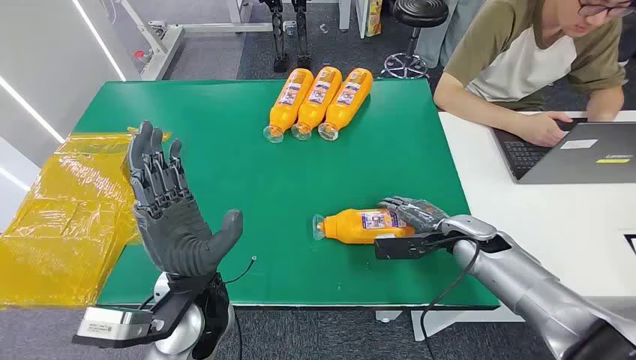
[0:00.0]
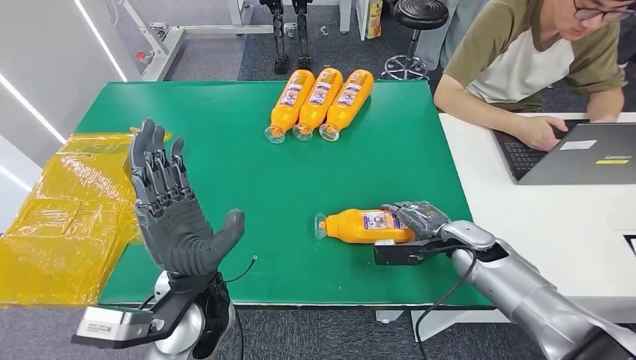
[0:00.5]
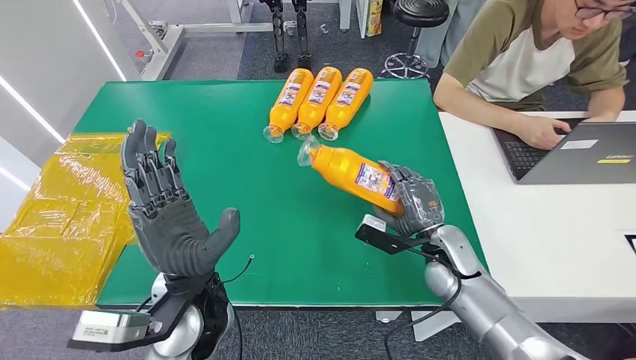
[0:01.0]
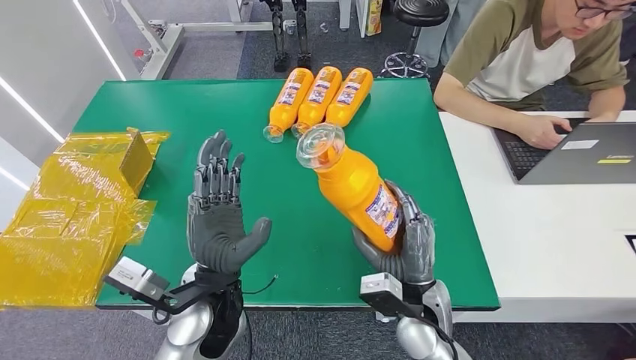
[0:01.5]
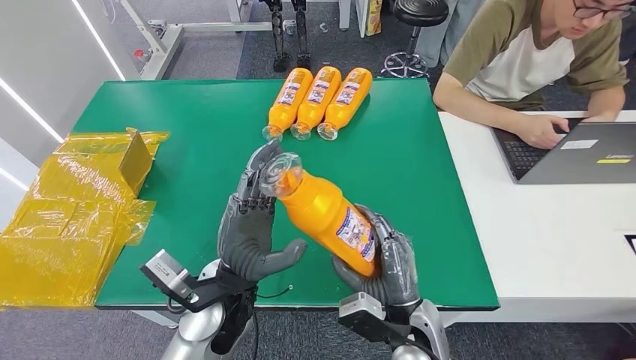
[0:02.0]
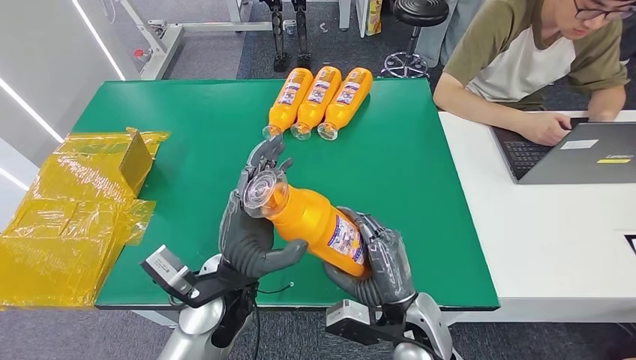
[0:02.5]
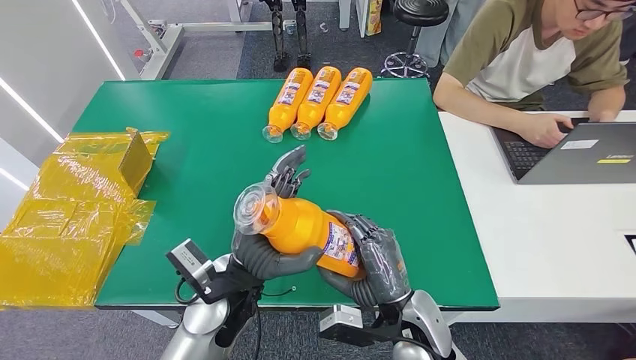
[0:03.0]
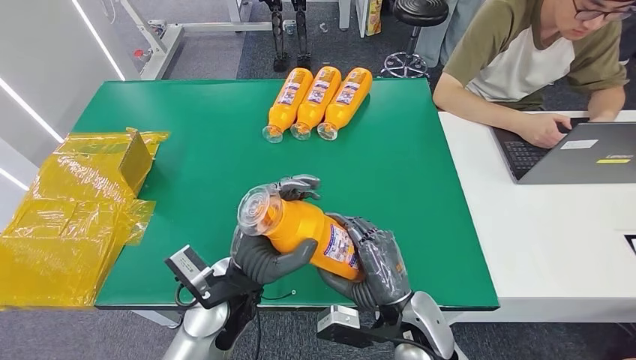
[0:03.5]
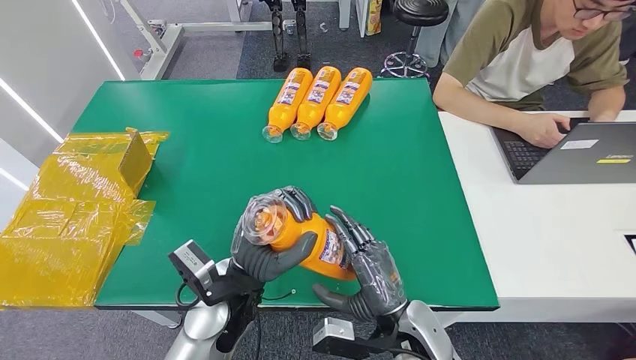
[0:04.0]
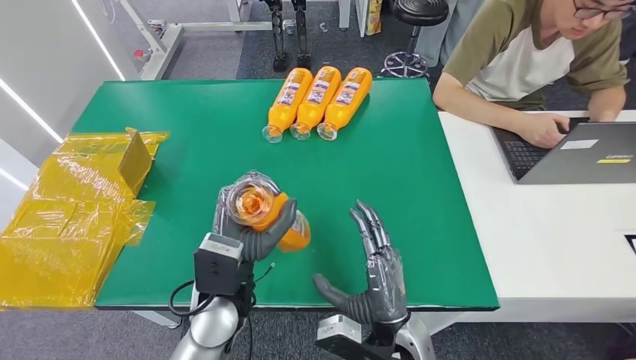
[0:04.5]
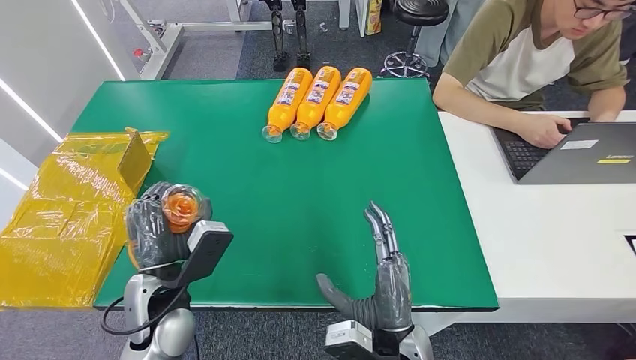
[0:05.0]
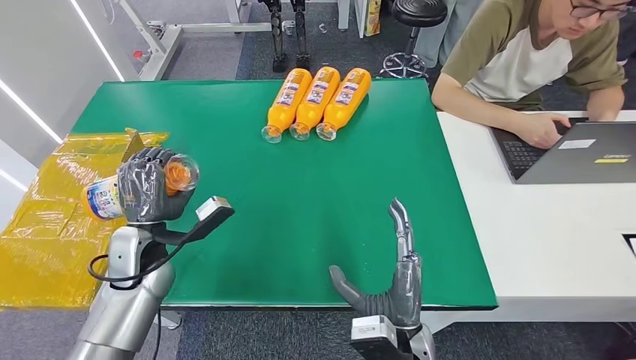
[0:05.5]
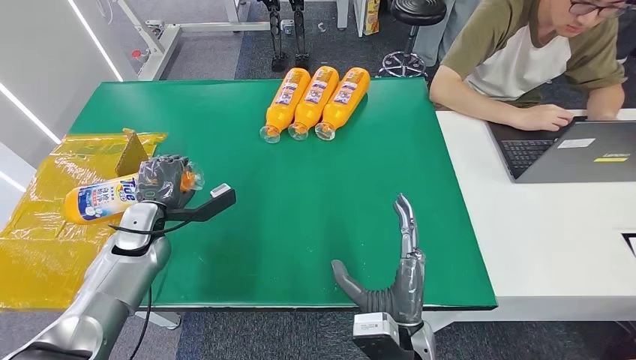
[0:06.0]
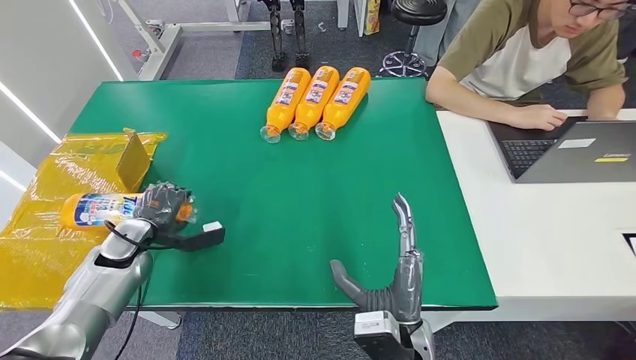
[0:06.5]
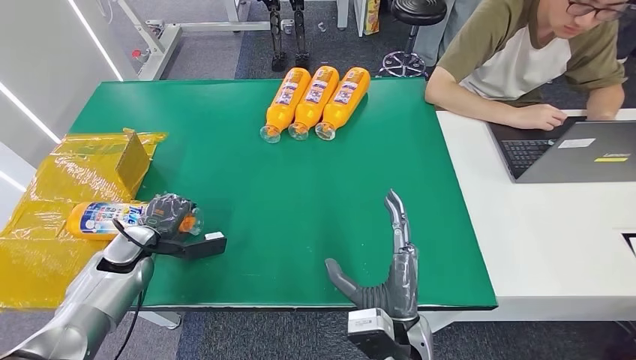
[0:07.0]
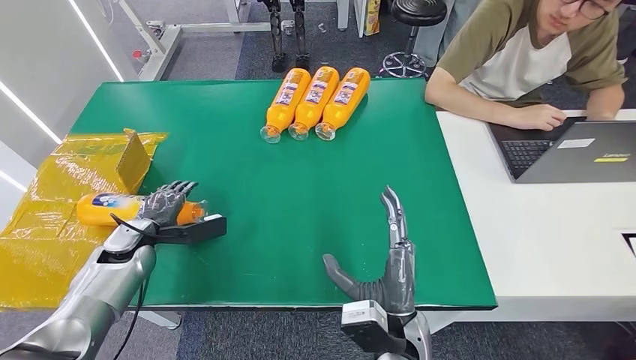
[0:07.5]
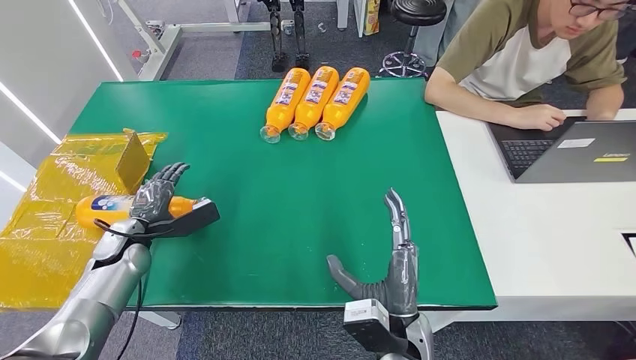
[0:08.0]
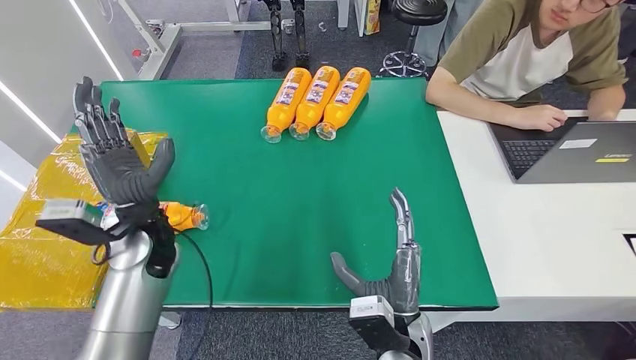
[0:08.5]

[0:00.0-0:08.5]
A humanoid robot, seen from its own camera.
Step, 0:00.0 to 0:01.5: Pick up the bottle from the table.
Step, 0:02.0 to 0:08.5: Turn the bottle to the front side.
0:02.0 to 0:04.0: There are only small adjustments of the hands.
0:06.5 to 0:08.5: The left hand heads to the right and upward, covering roughly 15 cm.

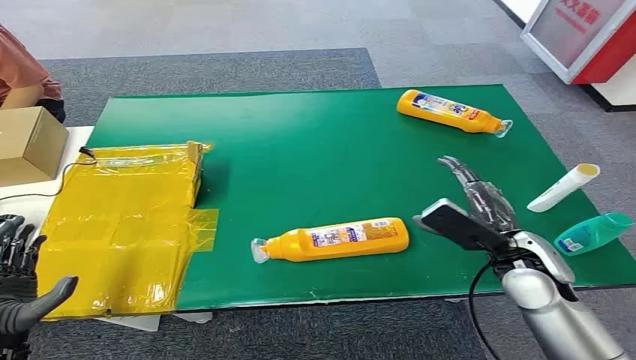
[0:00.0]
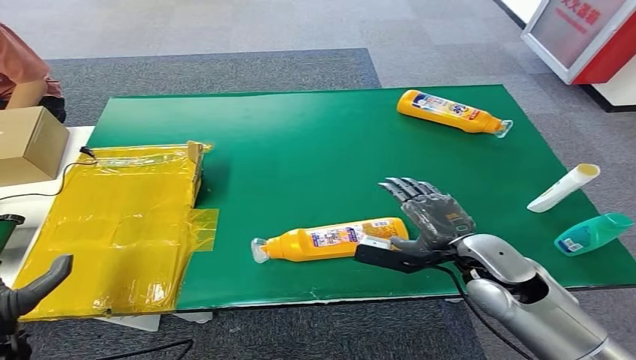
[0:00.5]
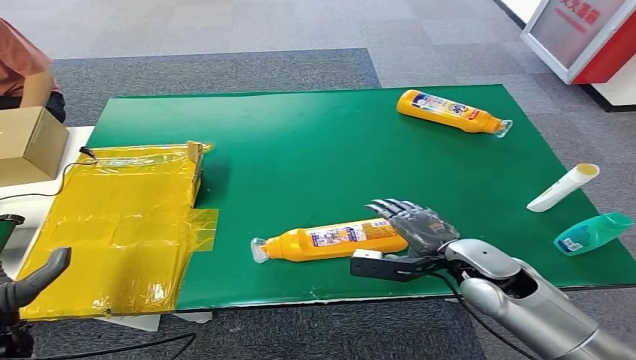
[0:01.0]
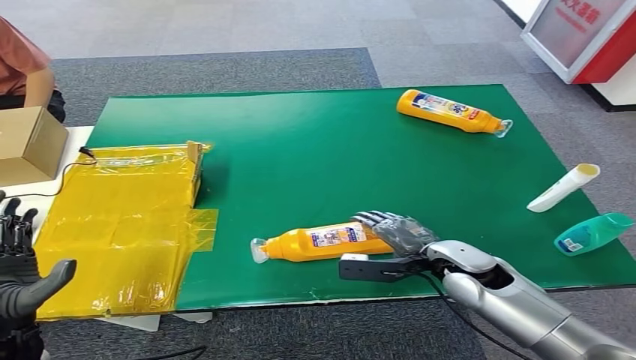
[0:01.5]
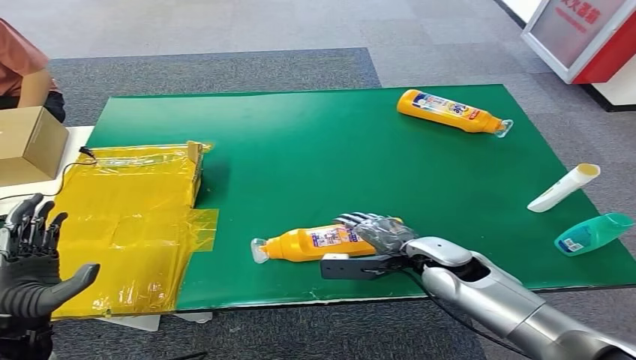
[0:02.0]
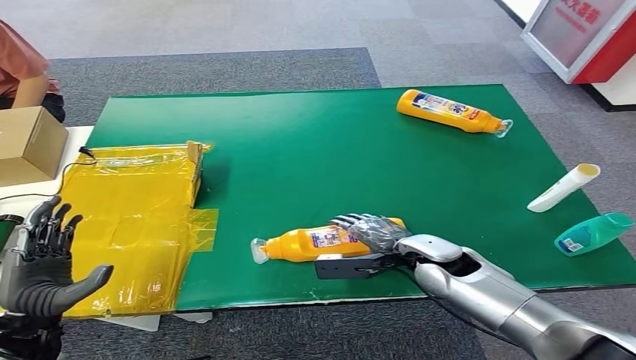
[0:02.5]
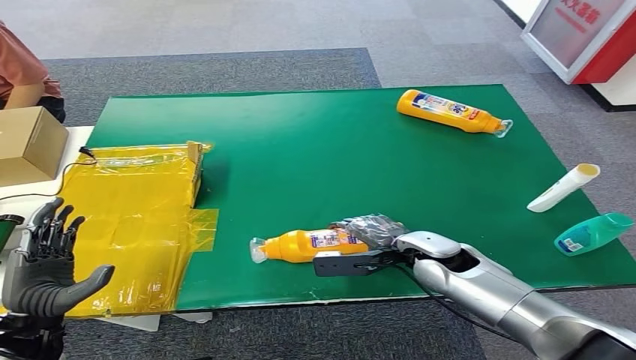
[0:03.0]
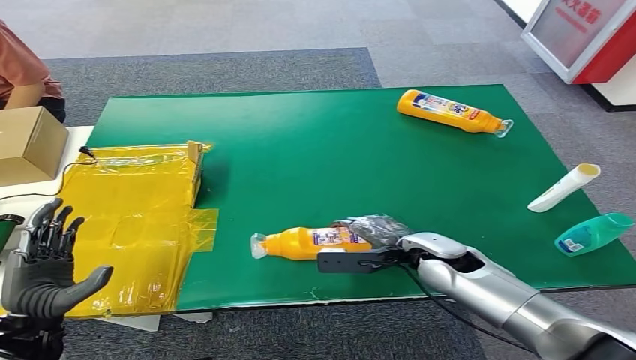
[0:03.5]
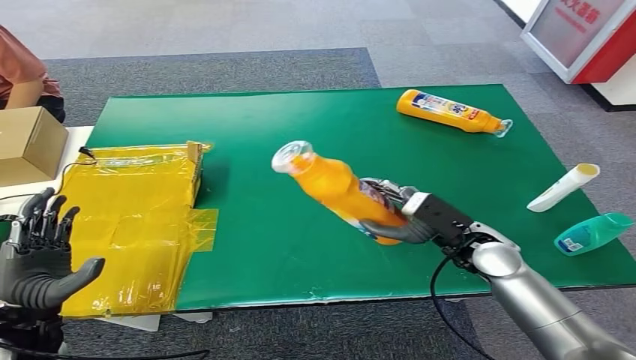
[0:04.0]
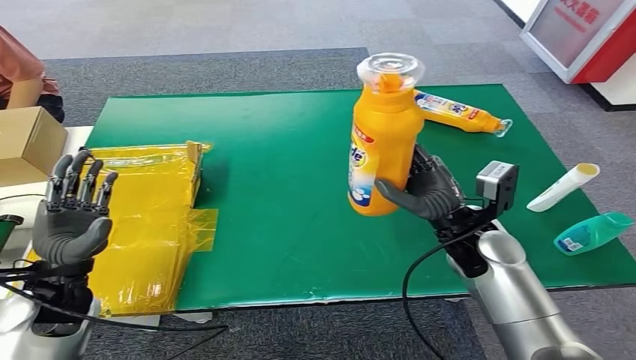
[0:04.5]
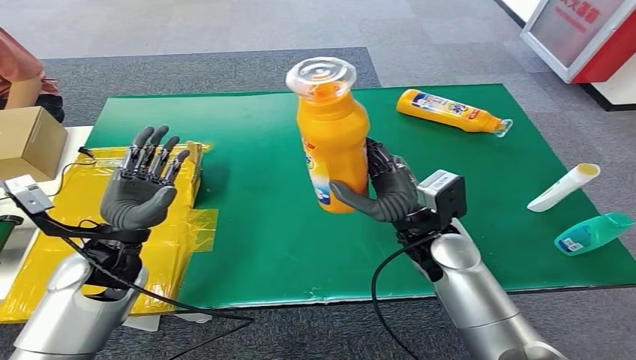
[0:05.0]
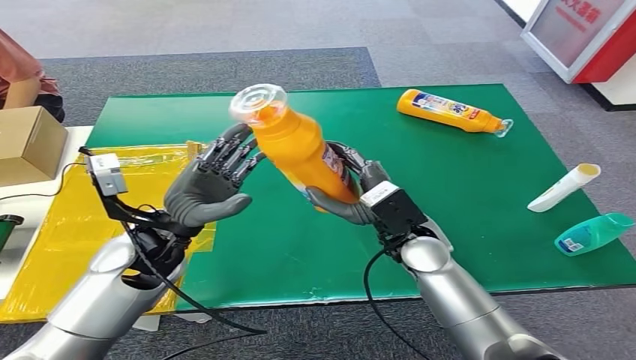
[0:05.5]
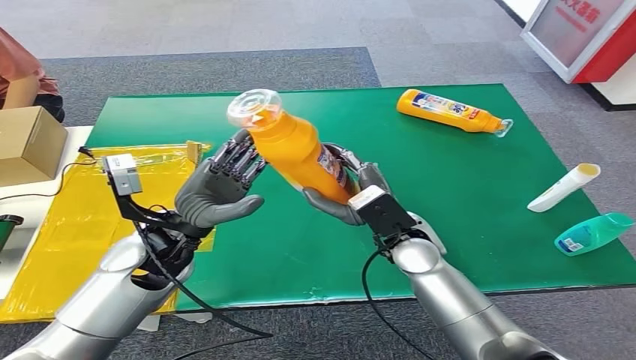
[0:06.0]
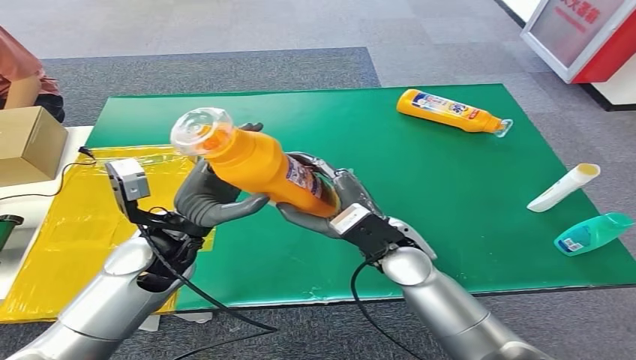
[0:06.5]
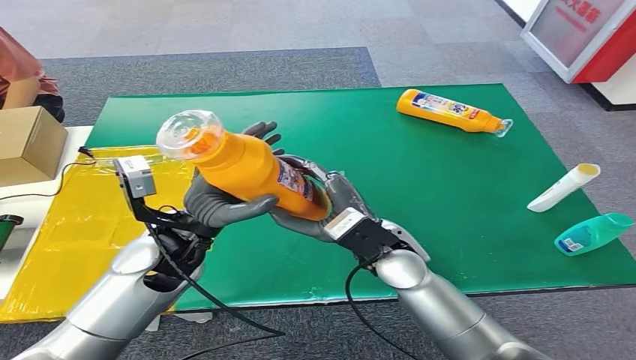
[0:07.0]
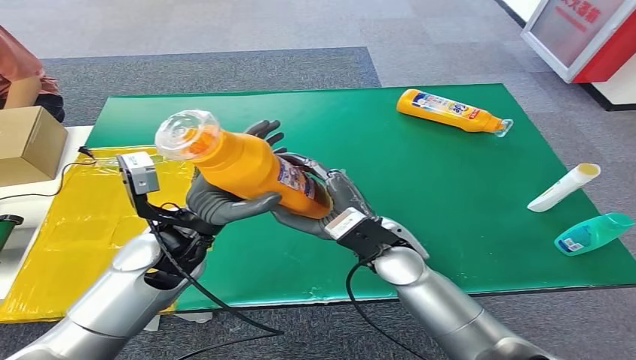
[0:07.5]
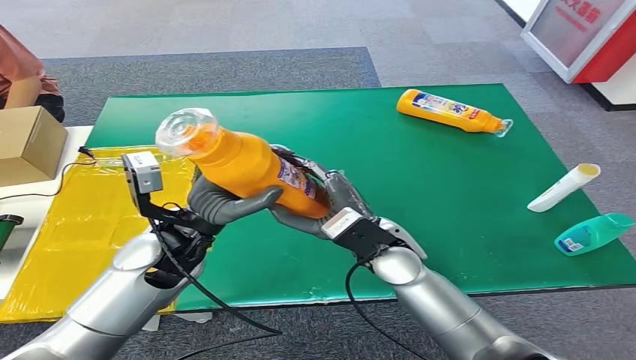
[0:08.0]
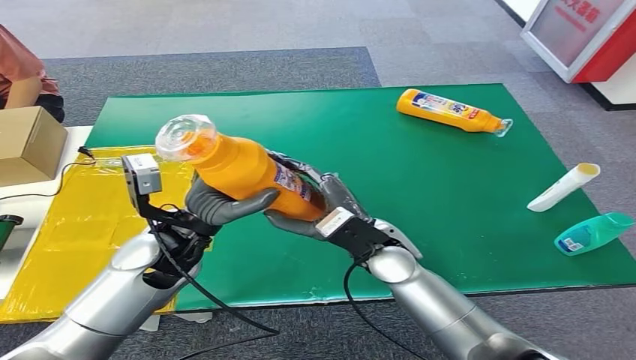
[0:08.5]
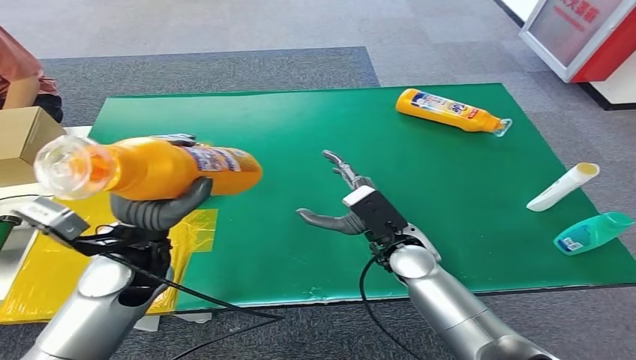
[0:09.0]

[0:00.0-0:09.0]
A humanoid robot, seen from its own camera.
Step, 0:00.0 to 0:04.5: Pick up the bottle from the table.

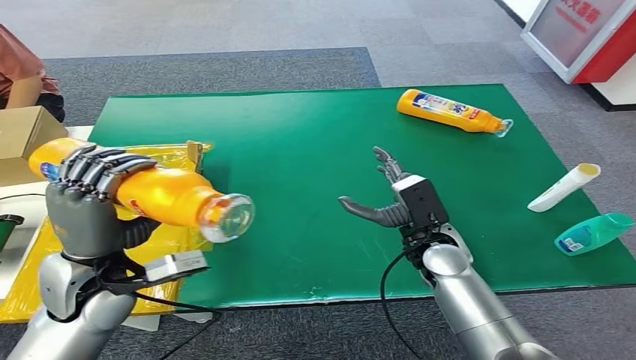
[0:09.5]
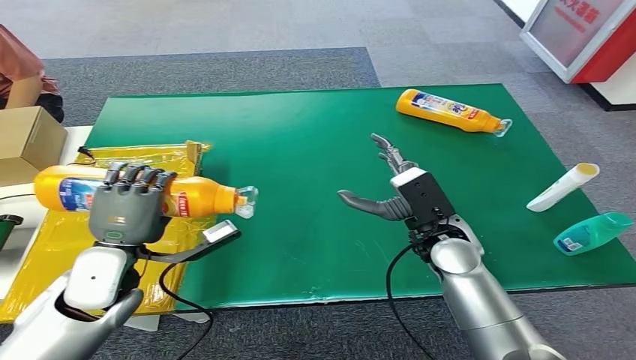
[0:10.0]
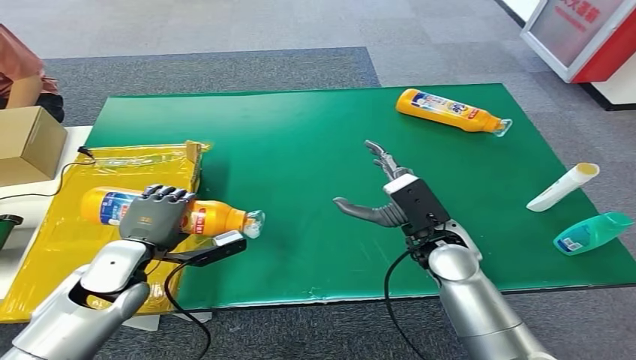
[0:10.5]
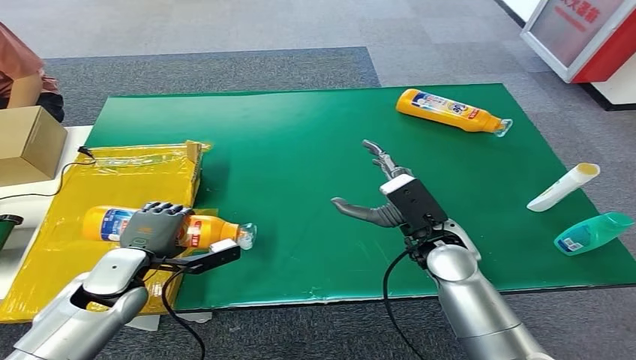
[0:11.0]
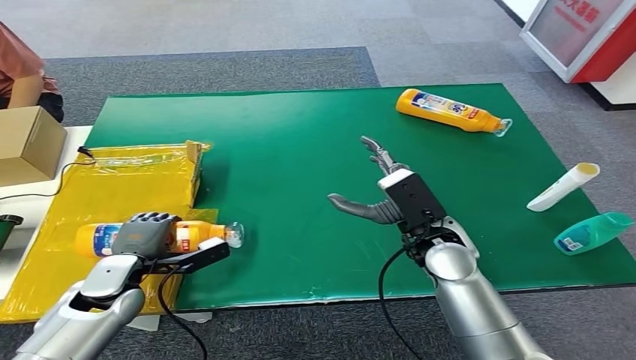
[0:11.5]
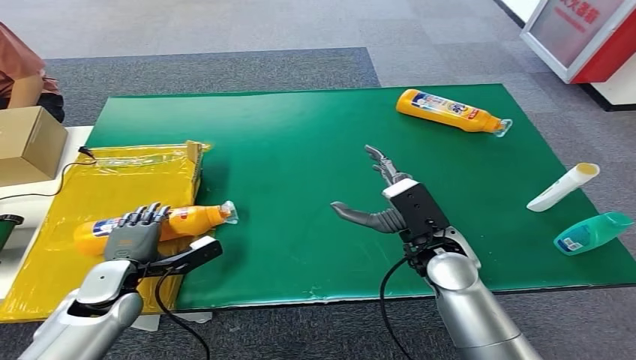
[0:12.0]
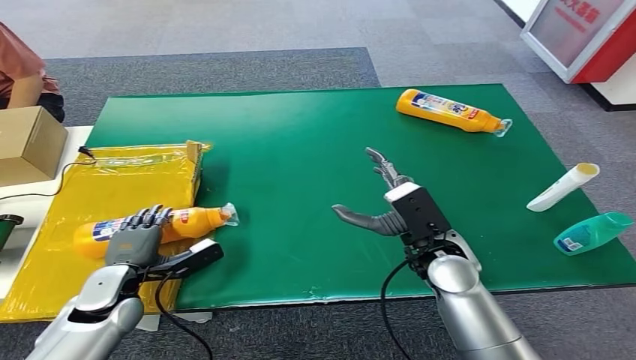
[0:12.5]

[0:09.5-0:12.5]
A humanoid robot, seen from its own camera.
Step, 0:09.5 to 0:12.5: Turn the bottle to the front side.
0:09.5 to 0:11.0: The left hand is displaced downward by about 10 cm.
0:11.0 to 0:12.5: The hands make only small movements.
